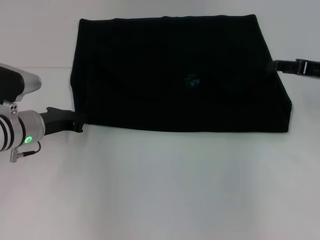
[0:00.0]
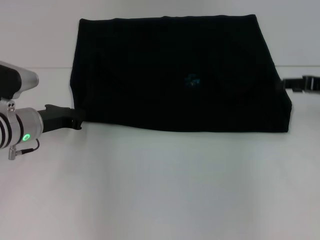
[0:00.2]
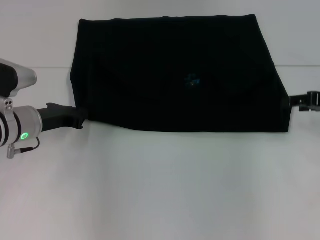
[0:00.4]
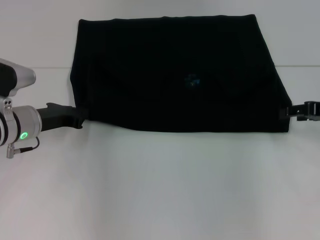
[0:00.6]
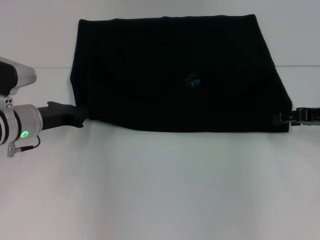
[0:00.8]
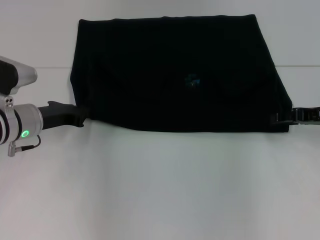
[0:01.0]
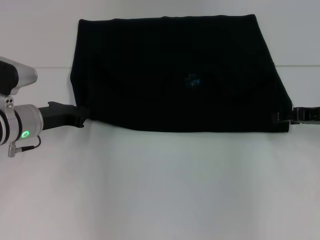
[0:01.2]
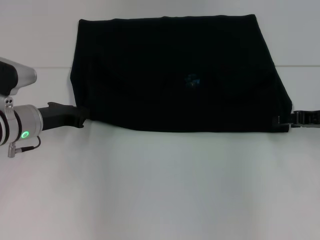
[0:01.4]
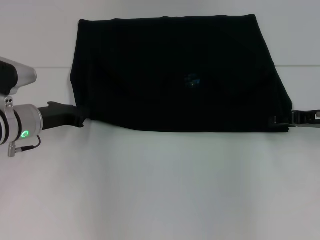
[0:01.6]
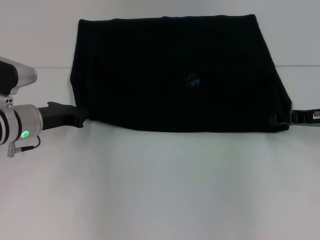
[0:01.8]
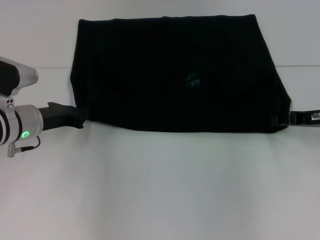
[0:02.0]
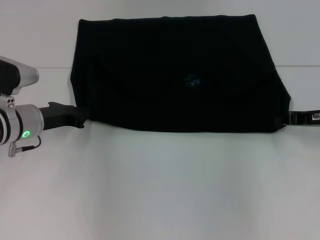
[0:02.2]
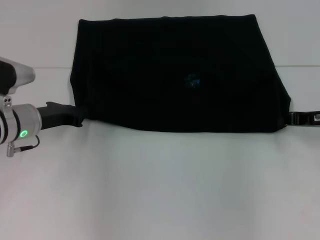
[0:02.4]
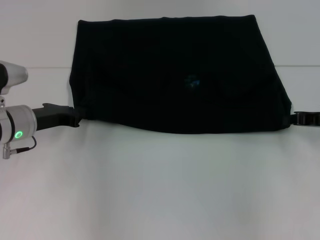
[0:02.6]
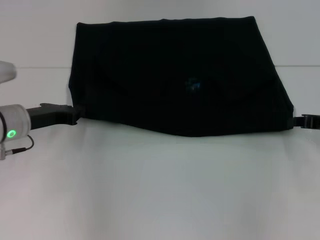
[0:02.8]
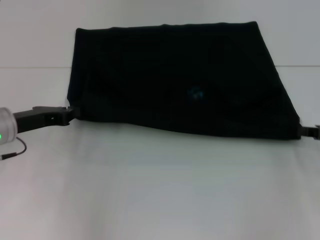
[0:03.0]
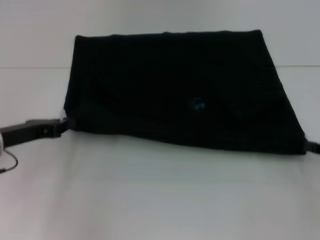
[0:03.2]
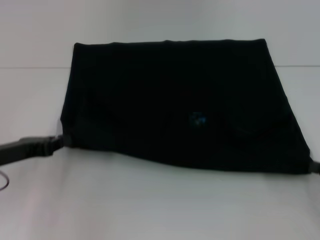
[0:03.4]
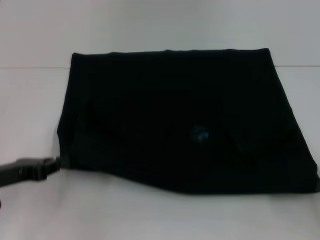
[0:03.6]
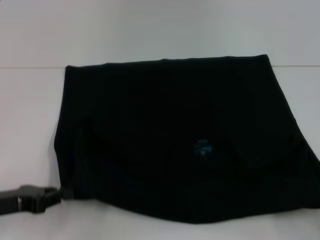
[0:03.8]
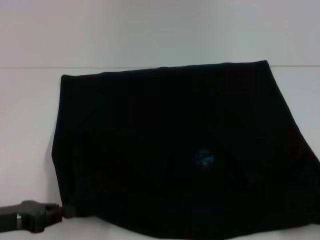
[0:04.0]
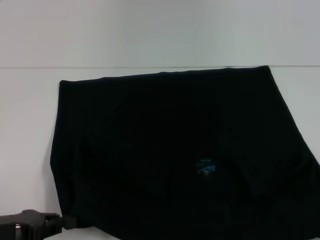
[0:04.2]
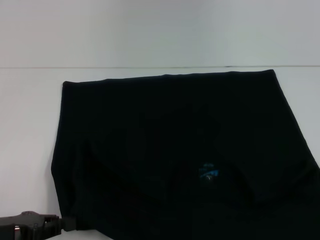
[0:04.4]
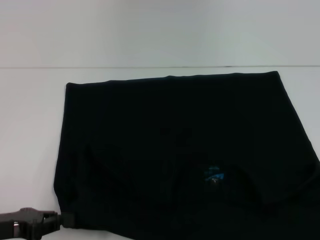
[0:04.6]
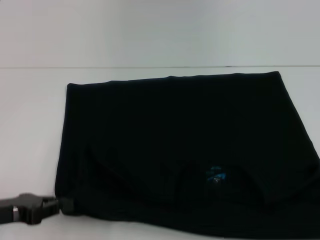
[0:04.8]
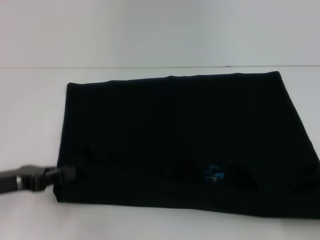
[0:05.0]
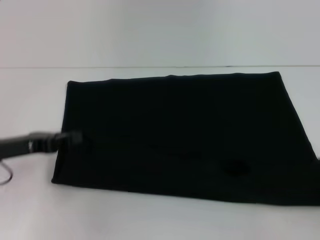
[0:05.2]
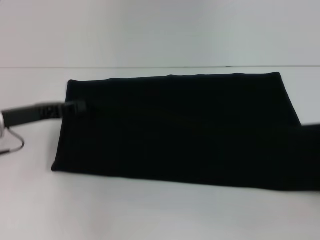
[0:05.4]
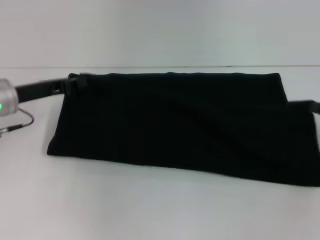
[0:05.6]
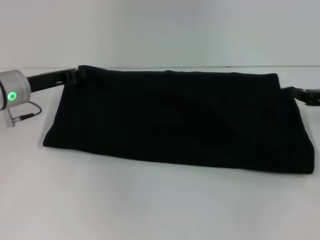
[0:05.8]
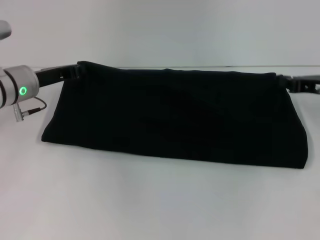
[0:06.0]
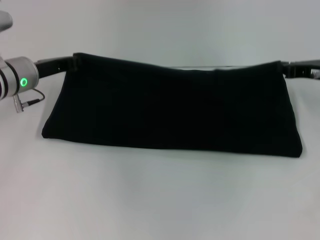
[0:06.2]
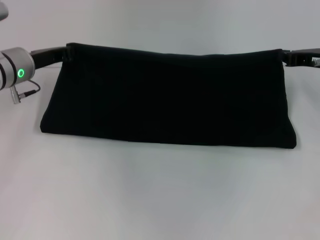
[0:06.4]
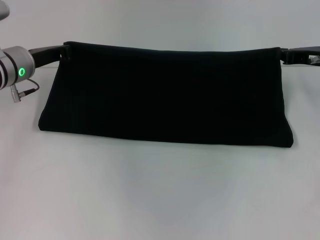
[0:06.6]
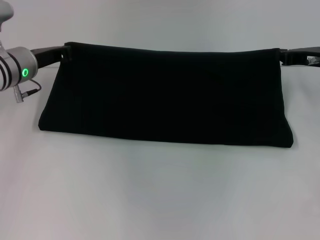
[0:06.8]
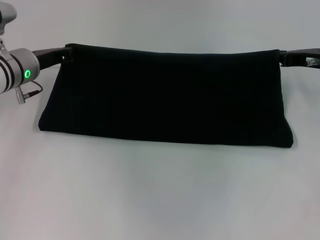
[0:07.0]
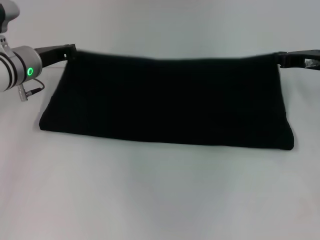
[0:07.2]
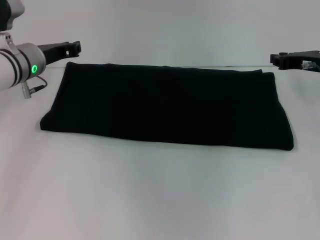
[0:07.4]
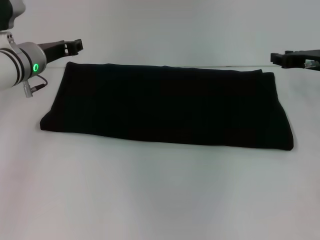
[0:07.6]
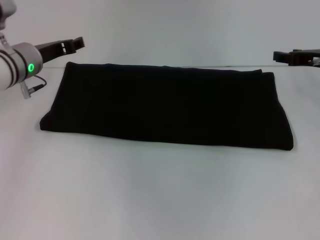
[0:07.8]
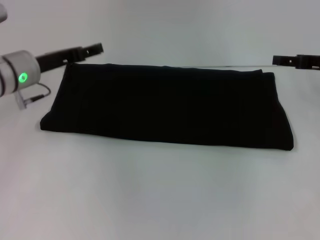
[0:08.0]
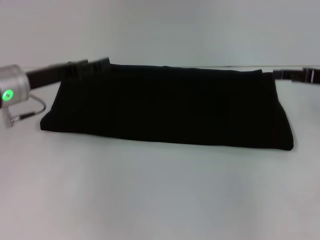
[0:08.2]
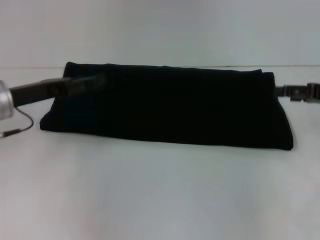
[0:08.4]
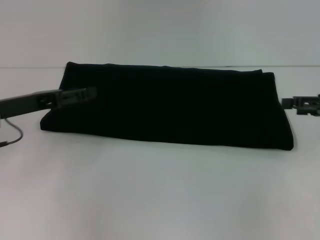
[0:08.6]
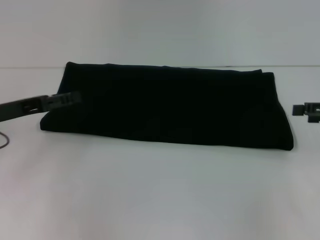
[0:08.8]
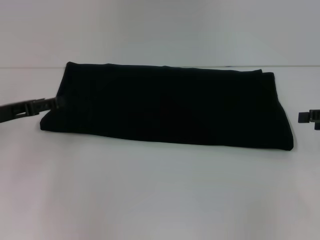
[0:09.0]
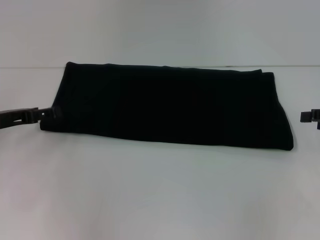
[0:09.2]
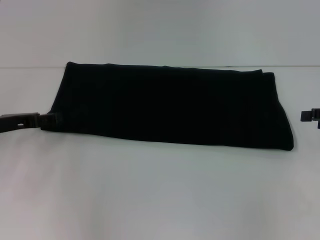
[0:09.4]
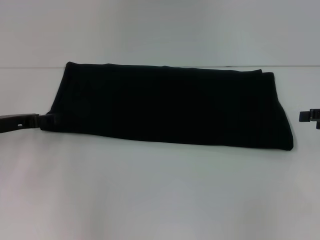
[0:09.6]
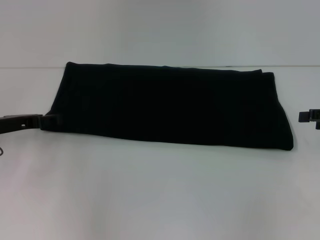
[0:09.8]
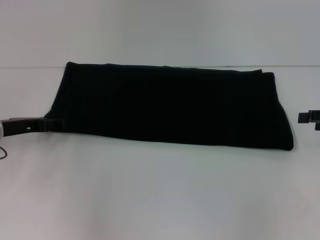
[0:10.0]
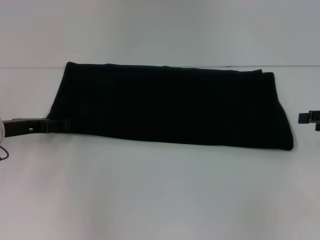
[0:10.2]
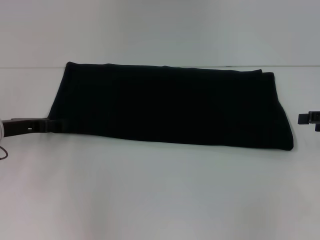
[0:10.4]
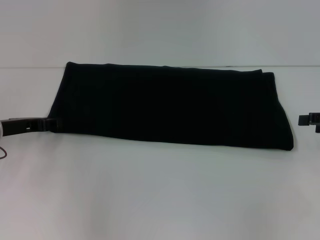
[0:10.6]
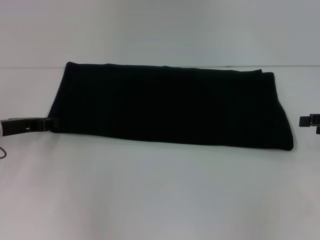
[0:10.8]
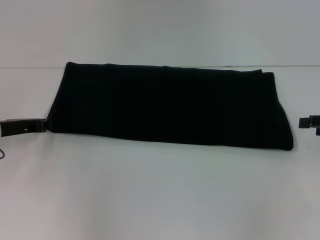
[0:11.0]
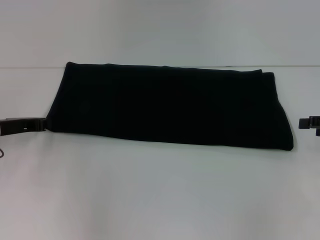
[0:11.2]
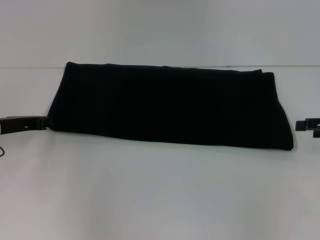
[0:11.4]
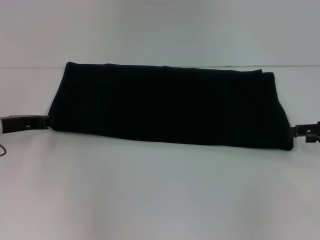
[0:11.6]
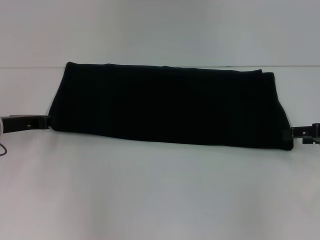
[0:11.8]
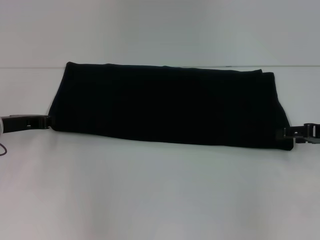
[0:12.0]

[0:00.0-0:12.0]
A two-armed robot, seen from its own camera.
Step, 0:00.0 to 0:04.6: Pull the clothes with your left hand.
Step, 0:00.0 to 0:04.6: Pull the clothes with your right hand.
Step, 0:04.8 to 0:08.2: Fold the clothes with your right hand.
0:00.0 to 0:01.6: The right gripper moves some 5 cm.
0:01.6 to 0:03.0: The right gripper goes about 5 cm backward, and closes its fingers.
0:03.0 to 0:04.4: The right gripper travels backward by some 20 cm, while the left gripper goes some 15 cm backward.
0:04.4 to 0:06.0: Both grippers travel together forward, some 25 cm.
0:06.0 to 0:07.6: The grippers stay close to where they were, moving slightly.
0:07.6 to 0:09.0: The left gripper is displaced backward and to the left by about 15 cm, and opens up; the right gripper goes roughly 15 cm backward and to the right, and opens.
0:09.0 to 0:10.4: The grippers stay close to where they were, moving slightly.
0:10.4 to 0:12.0: The left gripper closes its fingers.

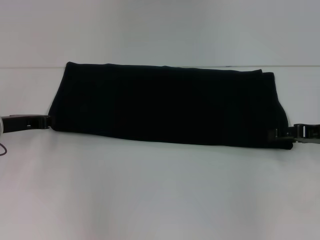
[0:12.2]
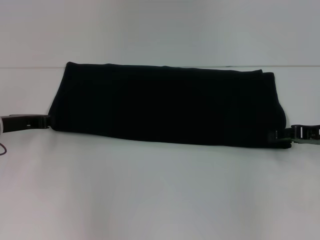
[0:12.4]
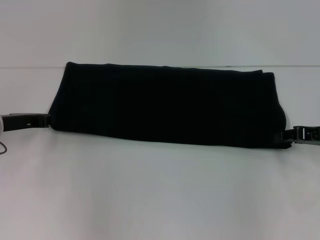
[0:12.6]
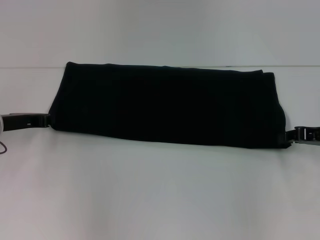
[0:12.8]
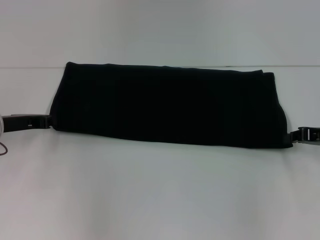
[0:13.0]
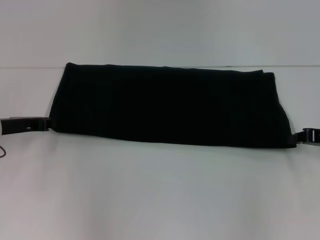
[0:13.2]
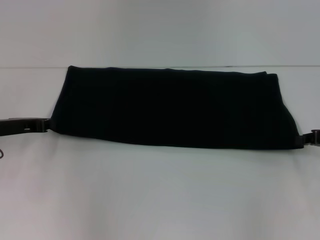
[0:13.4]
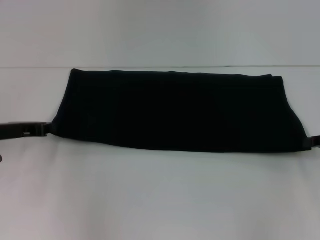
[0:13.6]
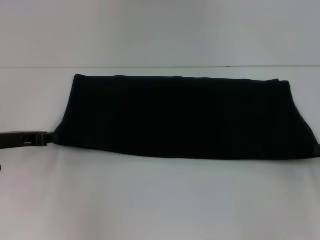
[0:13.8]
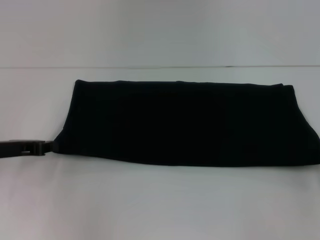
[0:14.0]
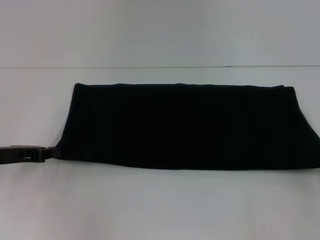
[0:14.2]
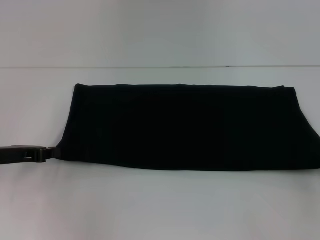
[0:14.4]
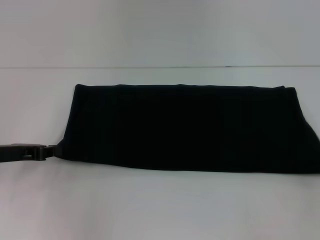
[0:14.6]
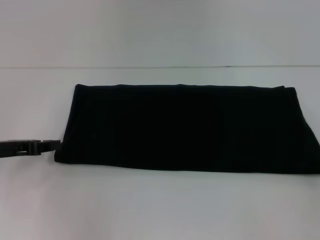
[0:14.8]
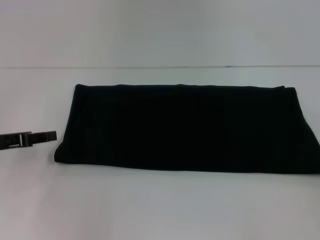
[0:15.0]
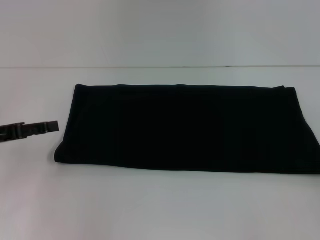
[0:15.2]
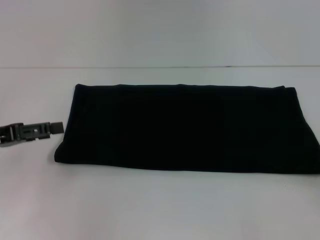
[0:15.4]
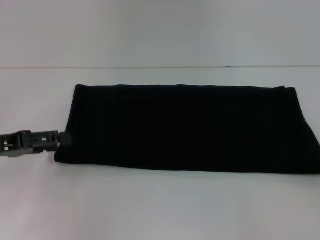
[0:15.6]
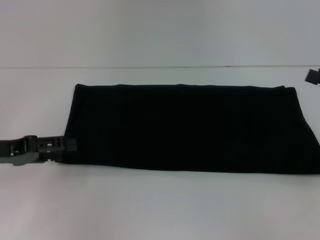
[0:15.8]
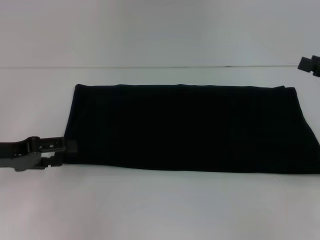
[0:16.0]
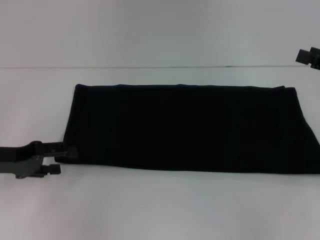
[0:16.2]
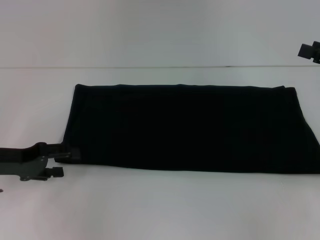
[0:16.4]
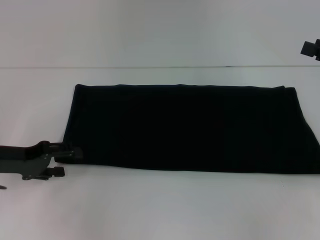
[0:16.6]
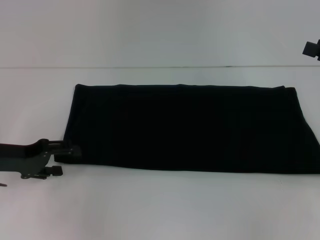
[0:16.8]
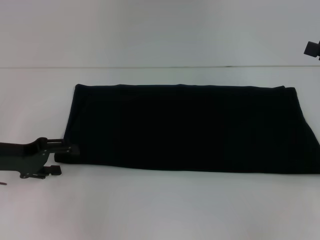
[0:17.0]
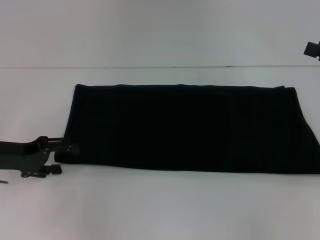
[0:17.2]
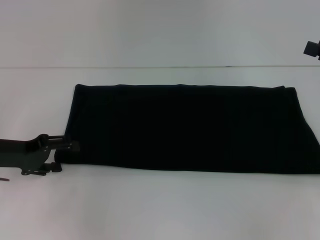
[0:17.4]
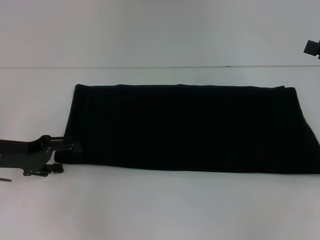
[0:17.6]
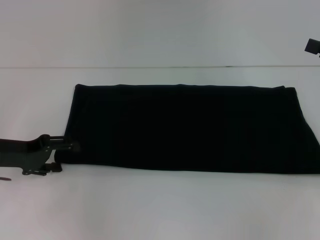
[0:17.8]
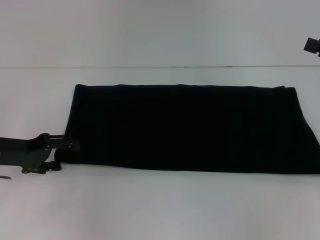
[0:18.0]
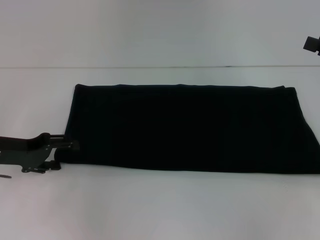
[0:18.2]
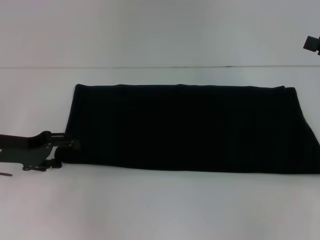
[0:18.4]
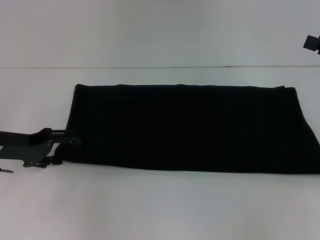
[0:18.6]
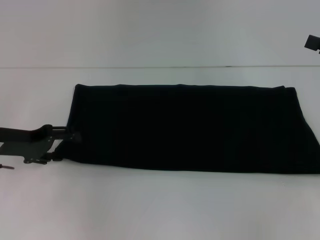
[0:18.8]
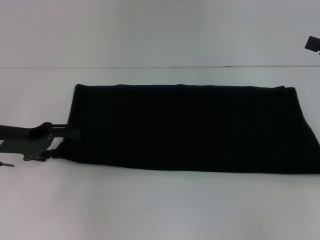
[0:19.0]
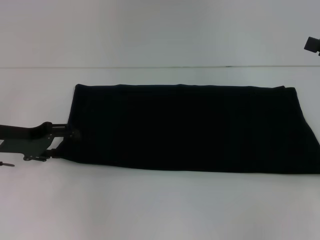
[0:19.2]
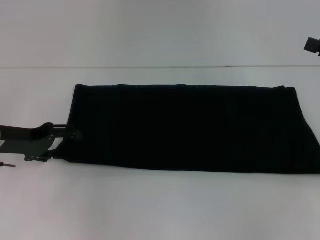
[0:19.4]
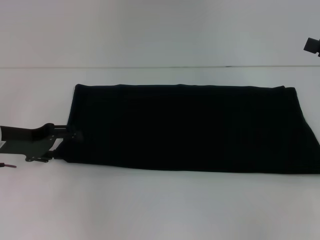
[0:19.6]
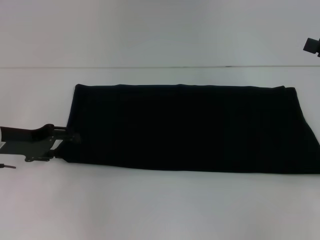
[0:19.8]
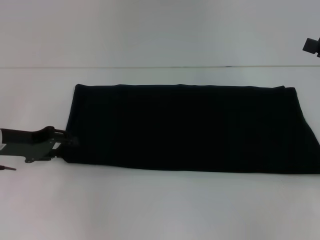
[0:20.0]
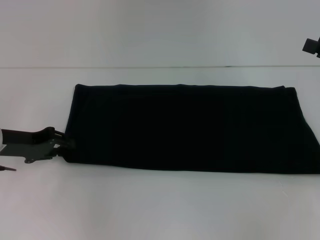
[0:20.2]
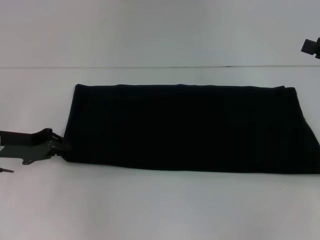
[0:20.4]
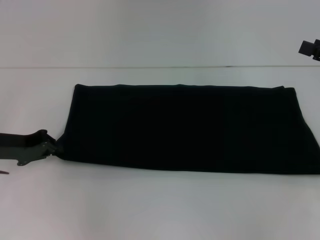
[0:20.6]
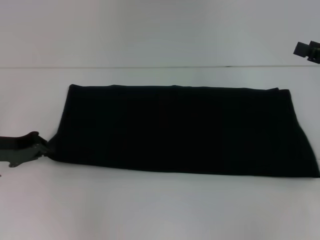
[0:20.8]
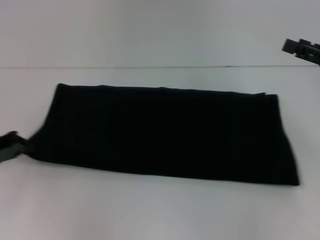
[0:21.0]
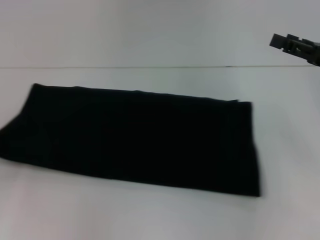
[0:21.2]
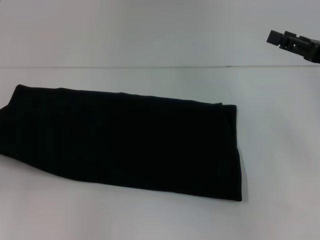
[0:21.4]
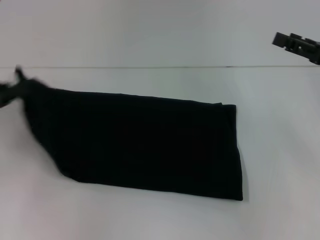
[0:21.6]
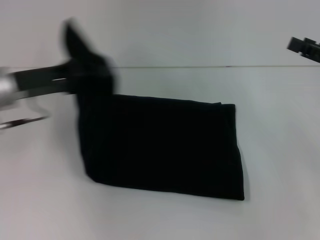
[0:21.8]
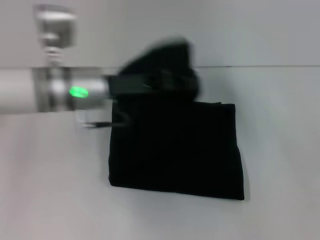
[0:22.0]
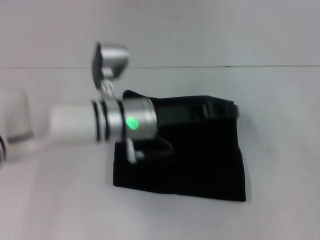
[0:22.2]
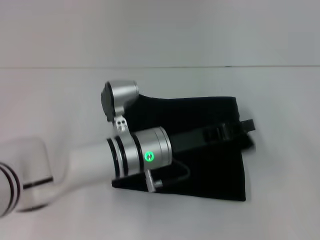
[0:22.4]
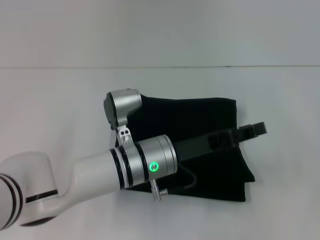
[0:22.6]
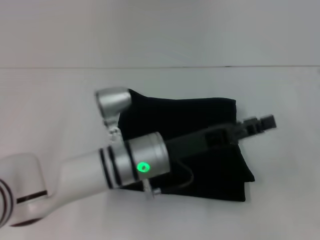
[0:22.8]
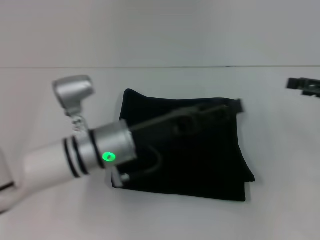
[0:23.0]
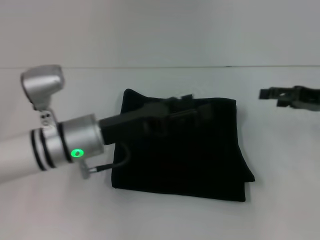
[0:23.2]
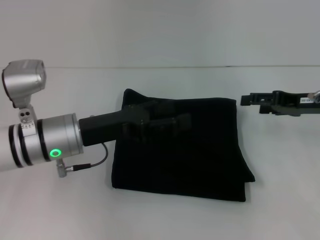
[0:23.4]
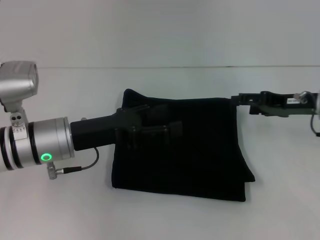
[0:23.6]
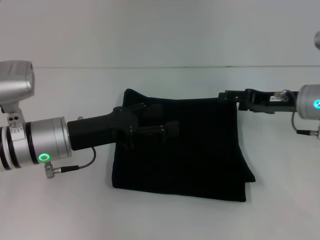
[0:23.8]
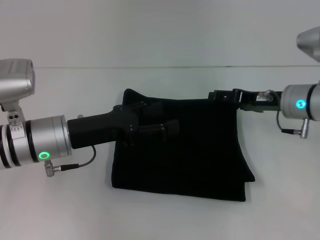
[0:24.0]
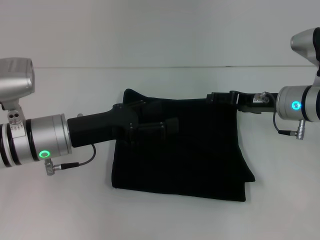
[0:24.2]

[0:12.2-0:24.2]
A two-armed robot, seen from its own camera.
Step, 0:12.2 to 0:22.8: Fold the clothes with your left hand.
0:12.2 to 0:13.8: The right gripper goes approximately 5 cm to the right and backward, and closes its fingers.
0:13.8 to 0:15.2: The left gripper ends up some 5 cm from where it was. Meanwhile the right gripper heads to the right, covering approximately 5 cm, and opens.
0:15.2 to 0:16.6: The left gripper opens up.
0:16.6 to 0:19.8: The grippers move only a little.
0:19.8 to 0:21.2: The left gripper travels to the left by roughly 10 cm, and closes.
0:21.2 to 0:22.6: The left gripper heads to the right, covering some 35 cm. Meanwhile the right gripper shifts about 10 cm to the right.
0:22.6 to 0:24.2: The left gripper is displaced to the left by some 15 cm, and opens. Meanwhile the right gripper travels to the left and forward by some 20 cm.
